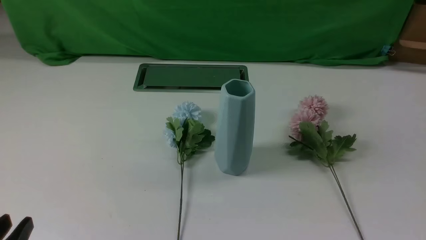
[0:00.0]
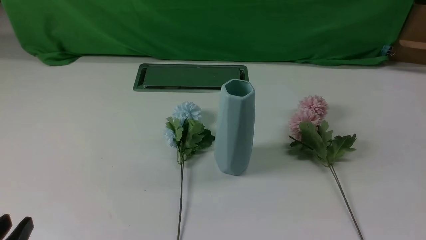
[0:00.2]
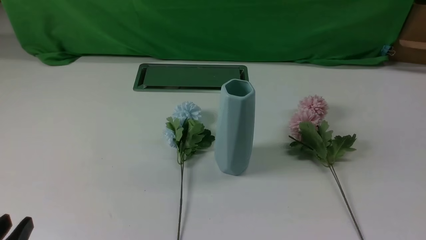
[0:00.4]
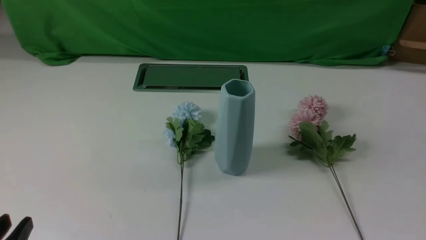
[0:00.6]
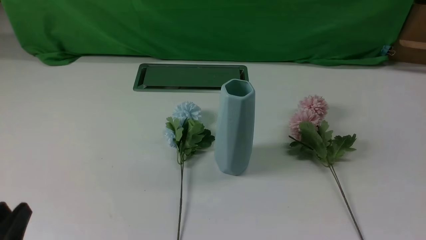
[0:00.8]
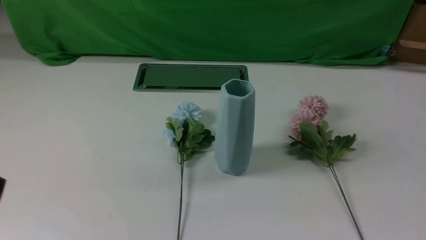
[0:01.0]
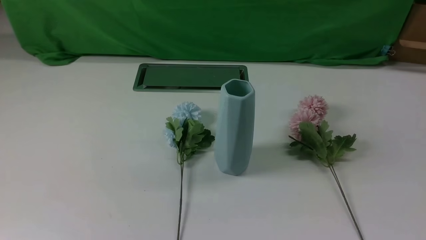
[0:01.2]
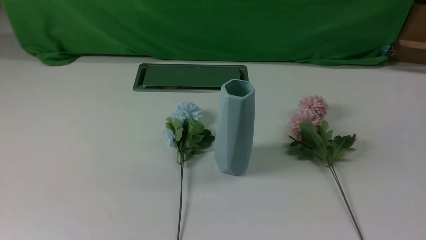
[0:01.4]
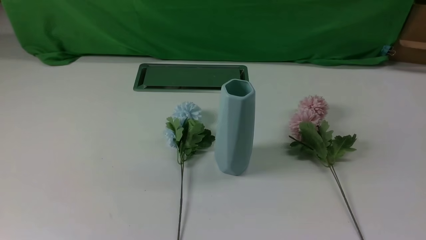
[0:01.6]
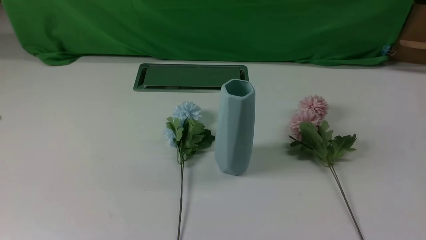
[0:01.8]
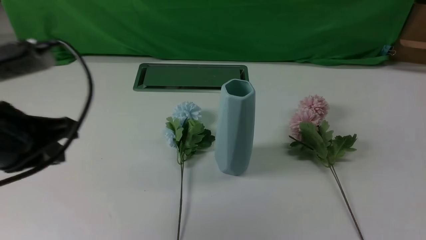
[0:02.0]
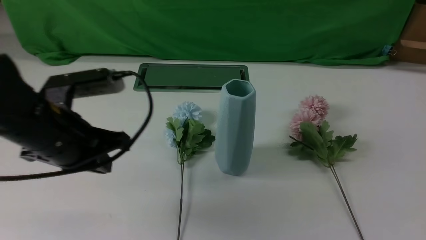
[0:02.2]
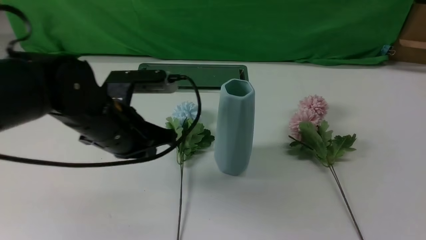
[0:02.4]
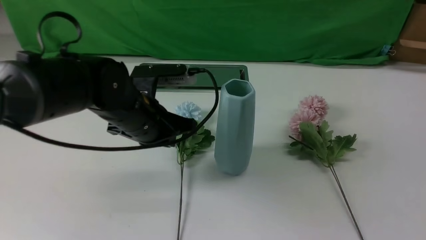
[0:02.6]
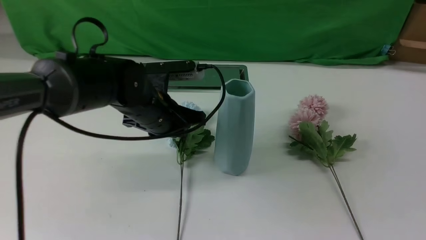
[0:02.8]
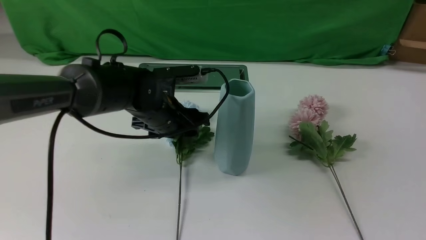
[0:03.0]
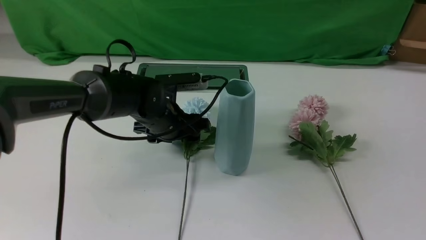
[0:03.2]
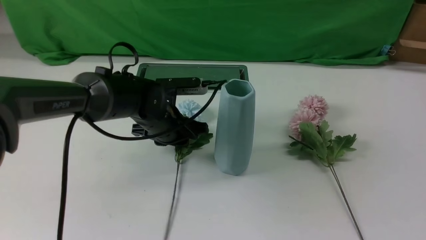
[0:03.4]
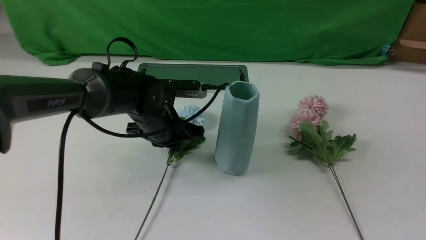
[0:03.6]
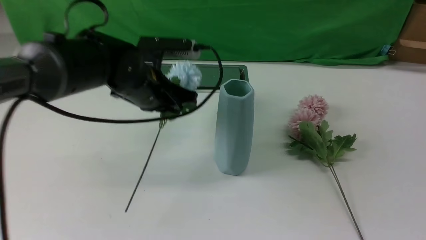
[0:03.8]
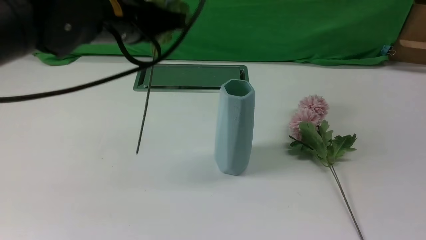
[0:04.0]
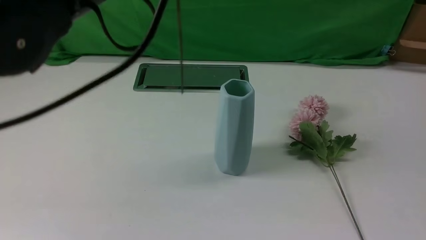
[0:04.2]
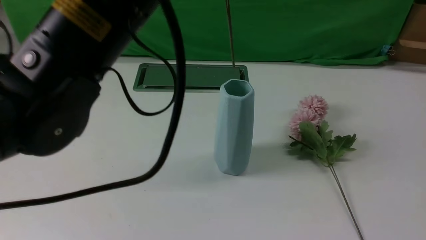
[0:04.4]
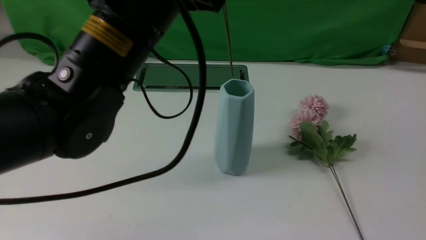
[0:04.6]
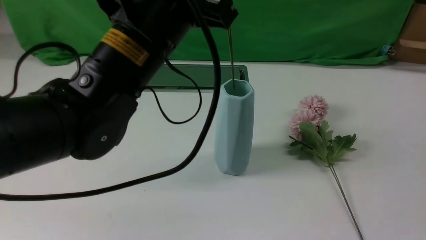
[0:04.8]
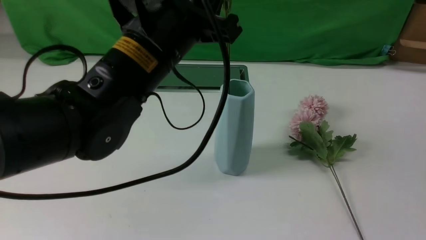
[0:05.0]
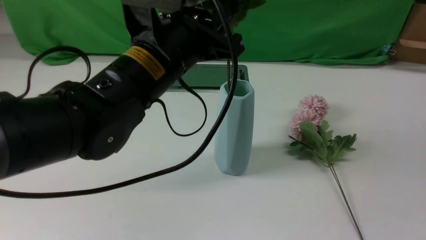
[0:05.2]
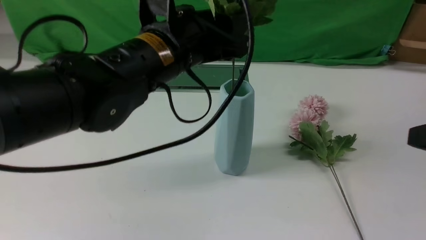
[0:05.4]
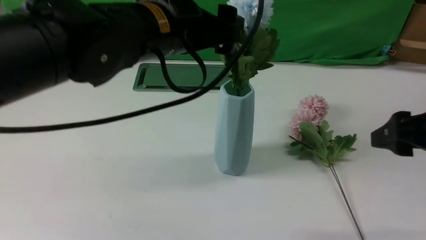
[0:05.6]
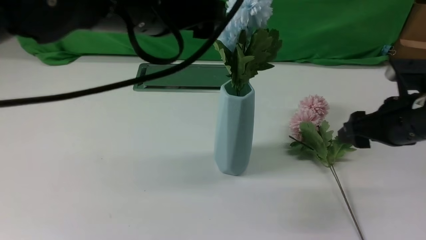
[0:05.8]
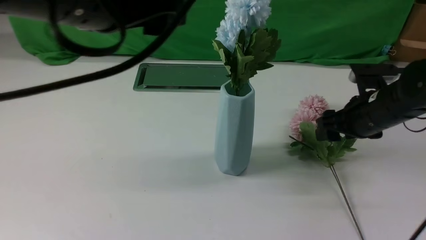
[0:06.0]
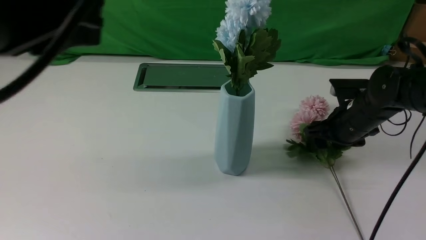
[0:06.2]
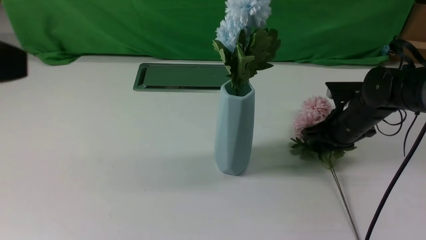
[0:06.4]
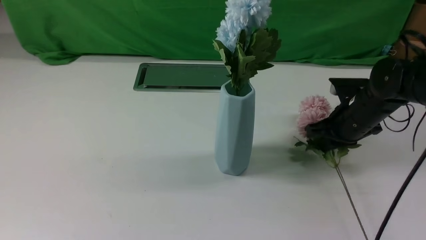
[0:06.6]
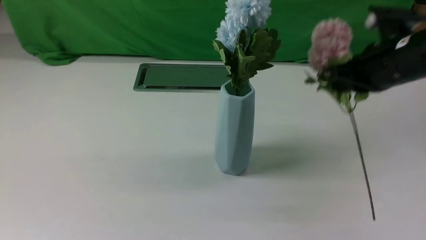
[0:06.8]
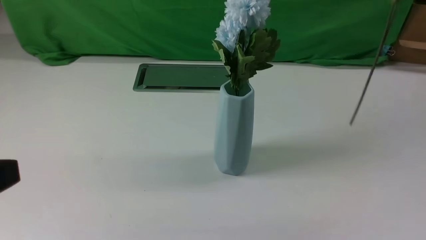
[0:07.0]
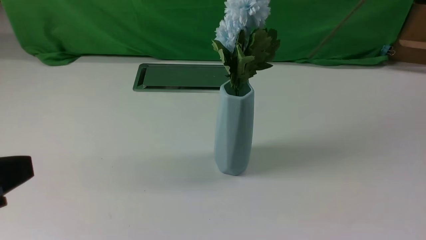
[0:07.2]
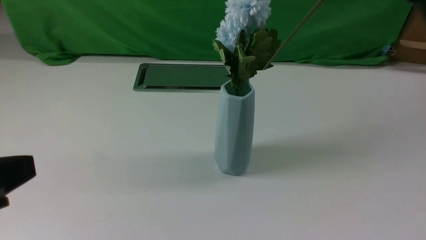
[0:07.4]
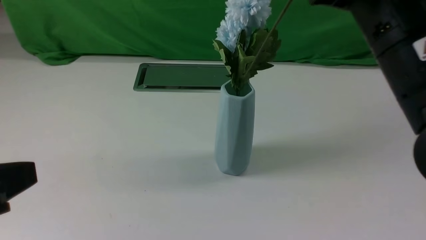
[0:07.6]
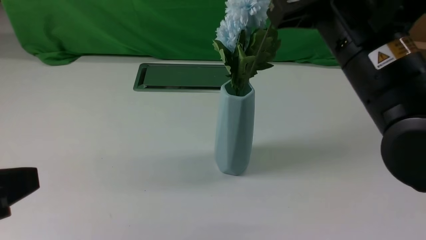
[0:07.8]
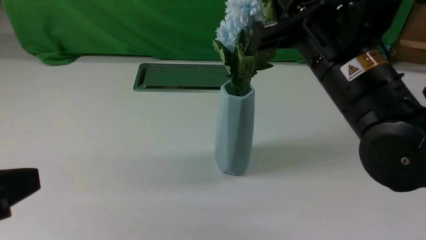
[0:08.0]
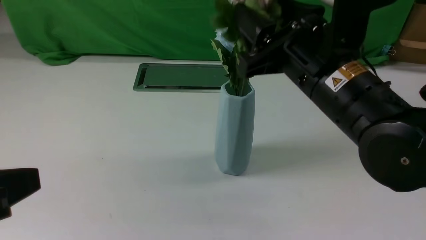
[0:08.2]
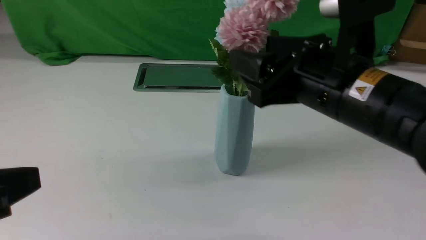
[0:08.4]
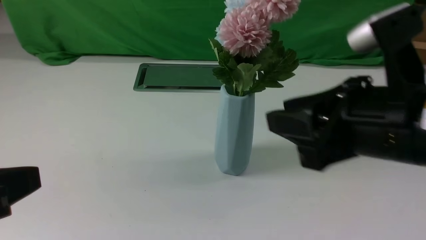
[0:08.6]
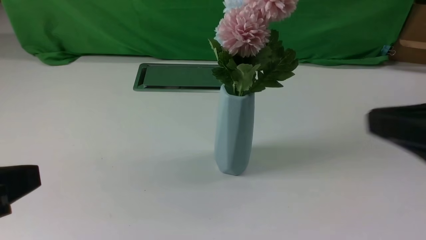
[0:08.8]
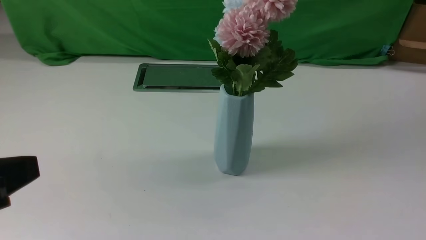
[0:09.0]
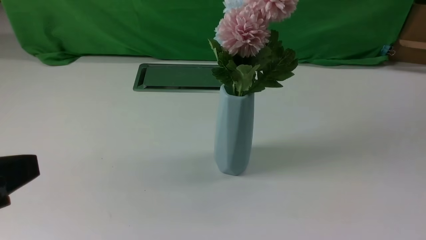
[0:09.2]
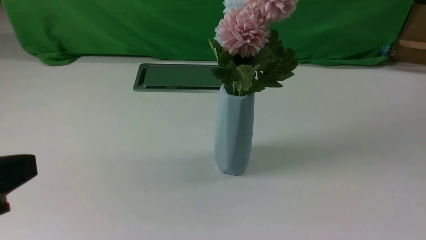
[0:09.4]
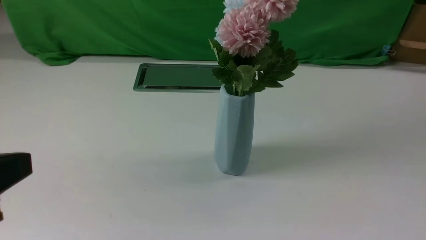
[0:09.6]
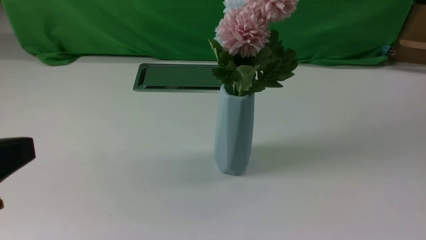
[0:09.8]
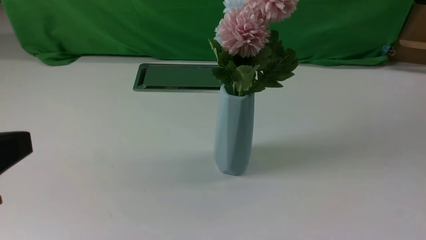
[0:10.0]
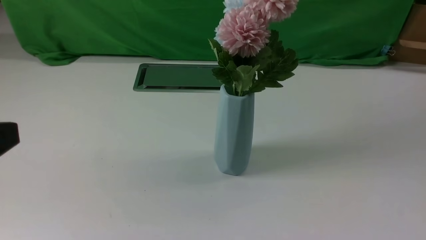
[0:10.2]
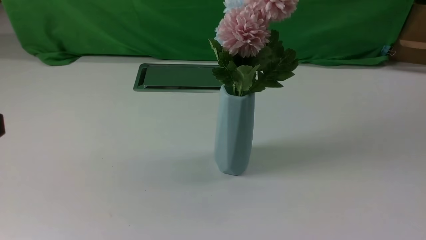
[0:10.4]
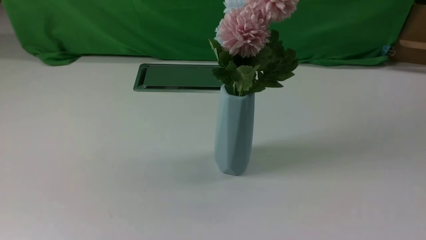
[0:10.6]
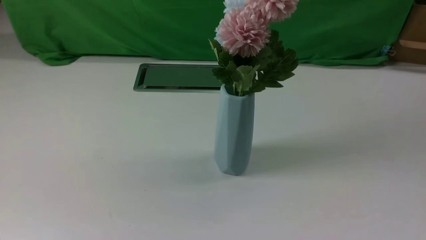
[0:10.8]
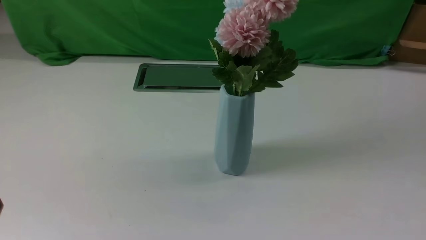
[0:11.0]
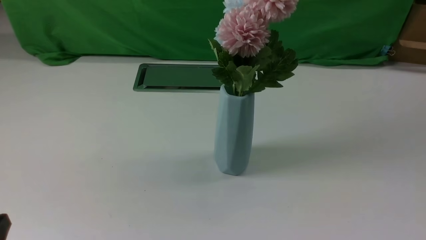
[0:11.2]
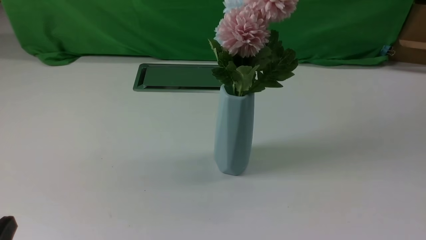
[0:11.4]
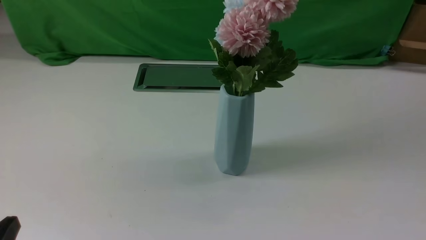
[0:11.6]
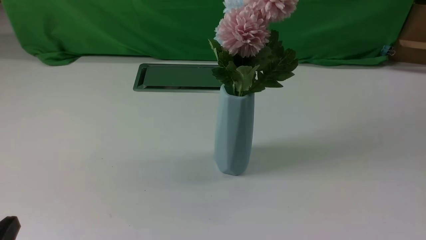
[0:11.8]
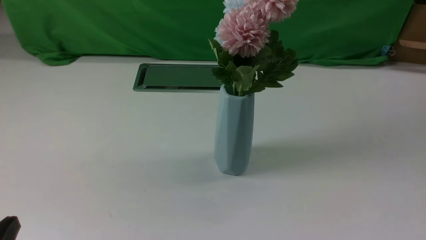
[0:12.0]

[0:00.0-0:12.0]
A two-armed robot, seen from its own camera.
Task of the whole recording: insert the flowers into the vase on the white table.
Step, 0:00.0 to 0:03.6: use the left arm to grab a bunch of fresh flowers.
Step, 0:03.8 to 0:05.4: use the left arm to insert the flowers into the vase.
Step, 0:05.8 to 0:06.4: use the right arm to grab a bunch of fresh flowers.
Step, 0:06.8 to 0:08.4: use the right arm to insert the flowers into the vase.
0:00.0 to 0:01.6: The left gripper is displaced upward by some 15 cm.
0:01.6 to 0:03.0: The left gripper is displaced forward, to the right and downward by about 40 cm, and opens up. Meanwhile the right gripper is displaced upward by roughly 15 cm.
0:03.0 to 0:04.4: The left gripper heads upward and backward, covering about 25 cm, and closes up.
0:04.4 to 0:06.0: The left gripper moves approximately 5 cm, and opens. Meanwhile the right gripper is displaced forward and downward by about 30 cm, and opens.
0:06.0 to 0:07.6: The right gripper swings up and down, about 25 cm each way, with 2 reversals, and closes up. The left gripper is displaced backward, to the left and downward by approximately 20 cm, and closes its fingers.
0:07.6 to 0:09.0: The right gripper is displaced backward and to the right by about 25 cm, and opens, then closes once more.

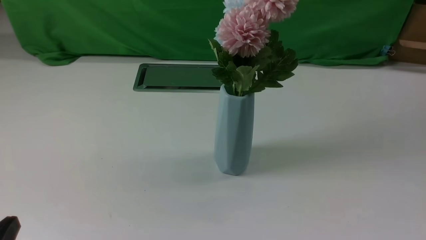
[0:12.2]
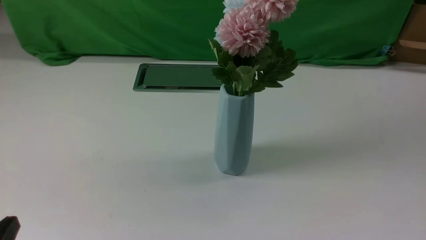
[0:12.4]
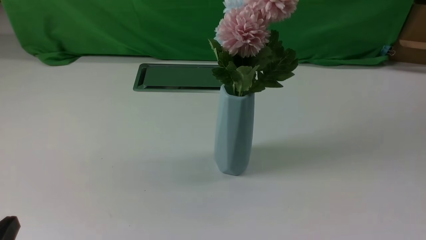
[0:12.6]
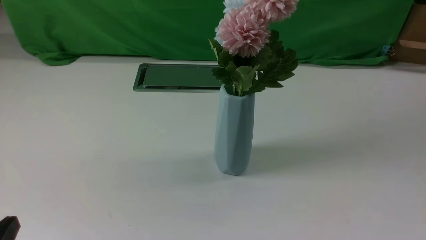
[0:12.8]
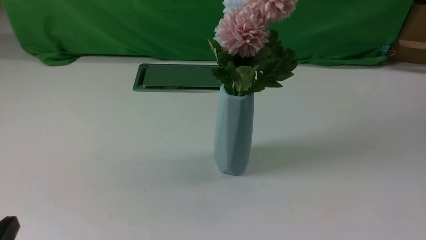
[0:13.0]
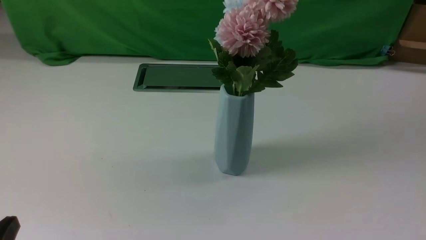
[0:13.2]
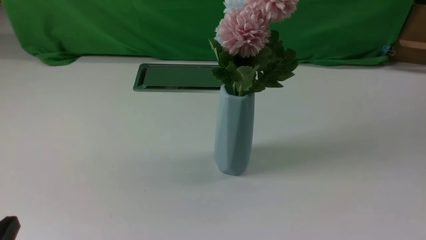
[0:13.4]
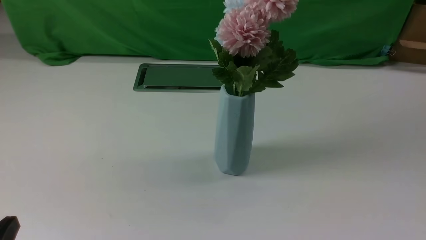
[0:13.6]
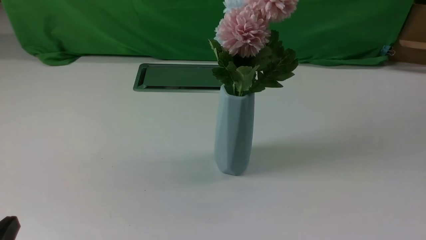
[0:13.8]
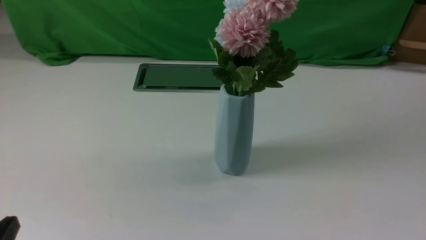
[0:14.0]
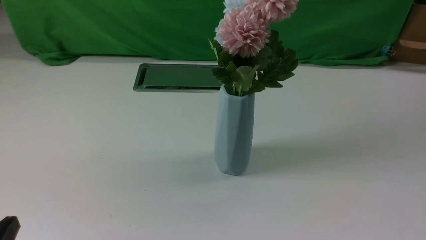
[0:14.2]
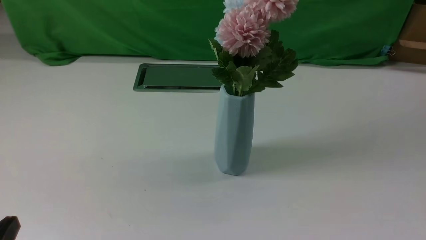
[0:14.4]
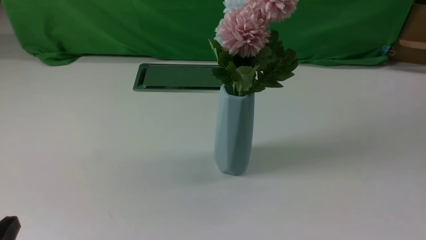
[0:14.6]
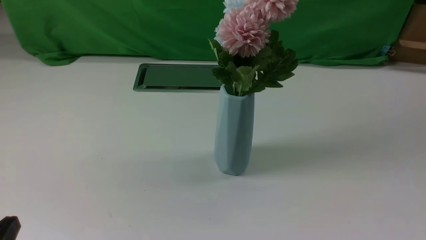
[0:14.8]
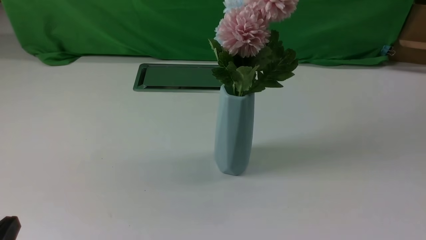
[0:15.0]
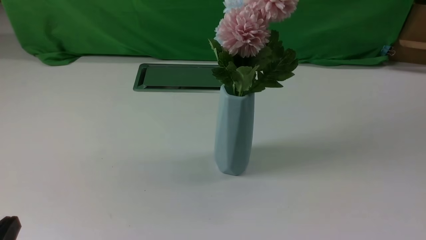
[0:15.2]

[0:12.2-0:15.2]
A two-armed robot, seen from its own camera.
Task of the whole recording: insert the flowers into the vase on the white table.
0:13.8 to 0:15.2: The two grippers keep their place.
